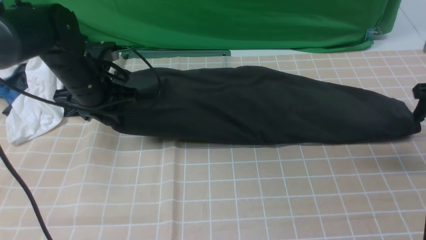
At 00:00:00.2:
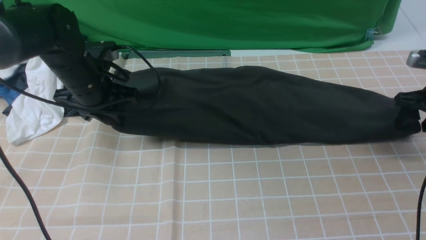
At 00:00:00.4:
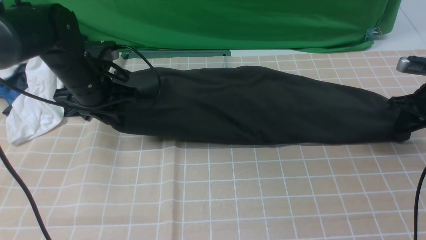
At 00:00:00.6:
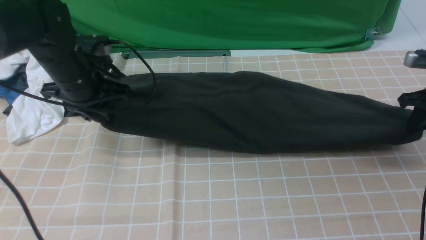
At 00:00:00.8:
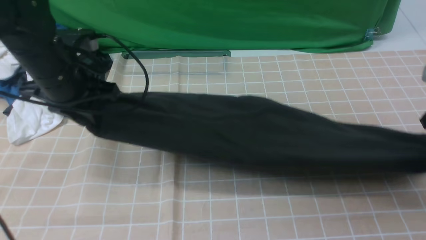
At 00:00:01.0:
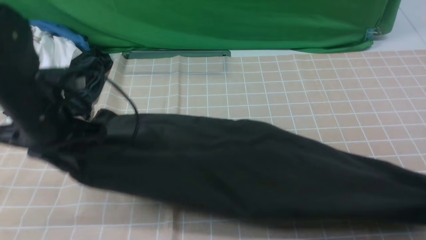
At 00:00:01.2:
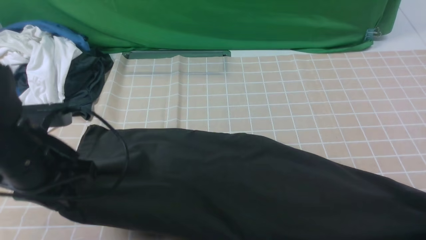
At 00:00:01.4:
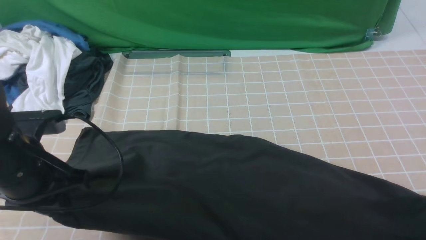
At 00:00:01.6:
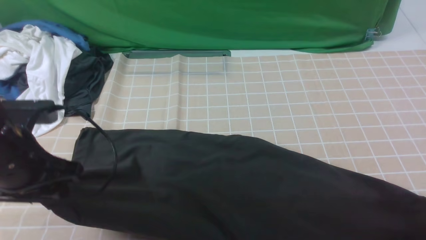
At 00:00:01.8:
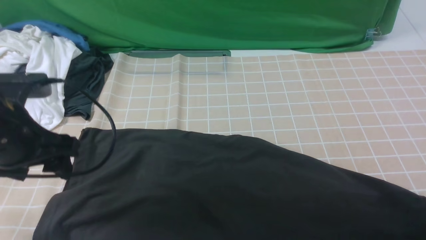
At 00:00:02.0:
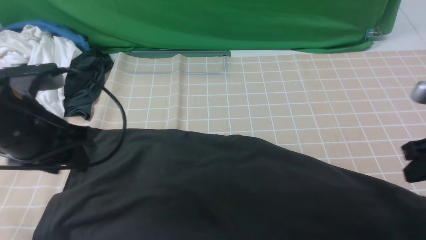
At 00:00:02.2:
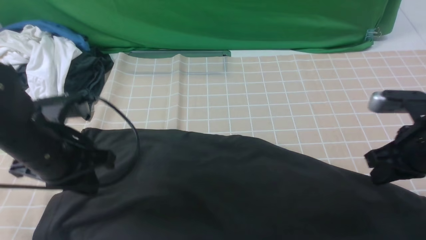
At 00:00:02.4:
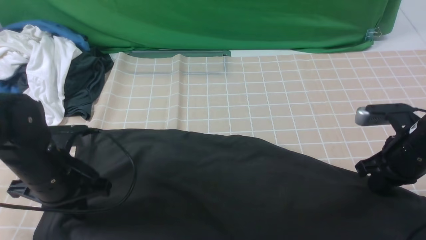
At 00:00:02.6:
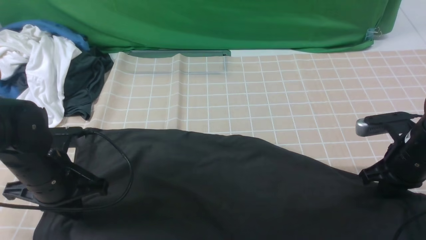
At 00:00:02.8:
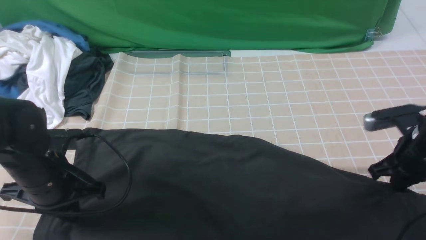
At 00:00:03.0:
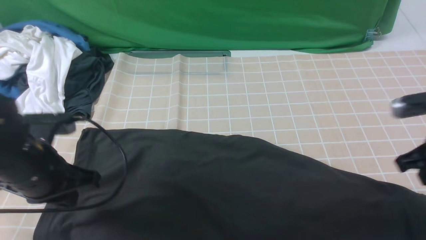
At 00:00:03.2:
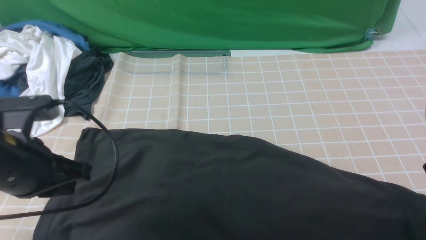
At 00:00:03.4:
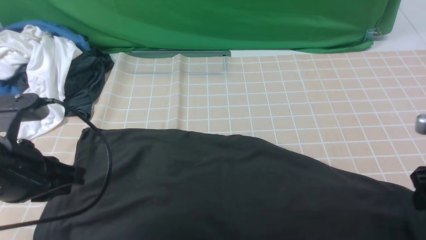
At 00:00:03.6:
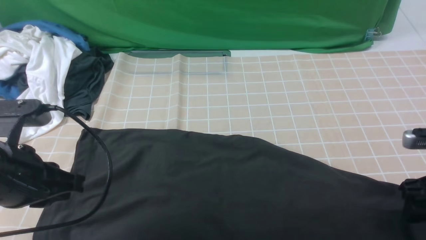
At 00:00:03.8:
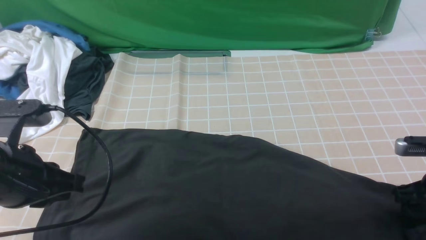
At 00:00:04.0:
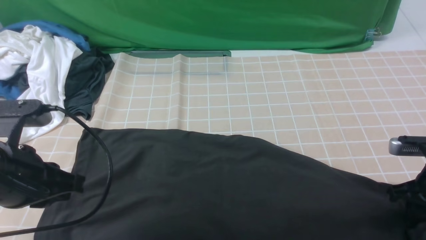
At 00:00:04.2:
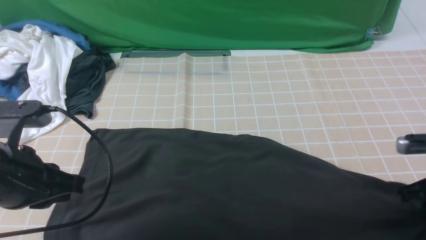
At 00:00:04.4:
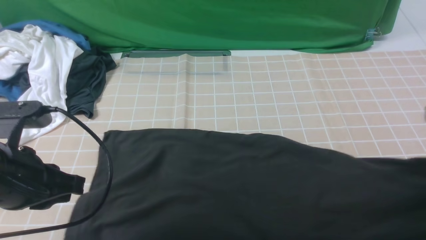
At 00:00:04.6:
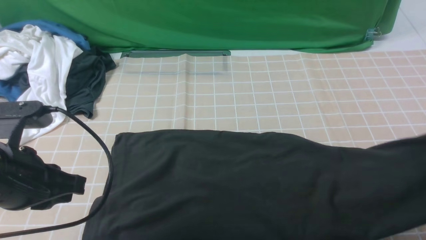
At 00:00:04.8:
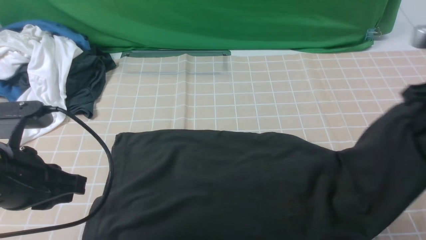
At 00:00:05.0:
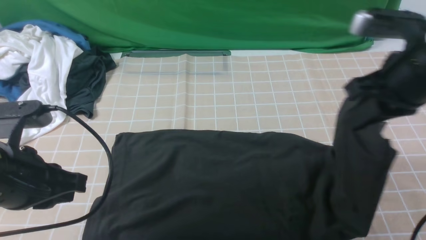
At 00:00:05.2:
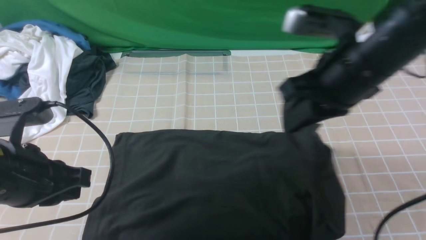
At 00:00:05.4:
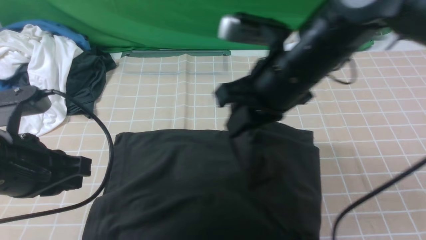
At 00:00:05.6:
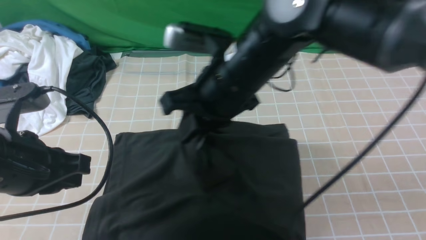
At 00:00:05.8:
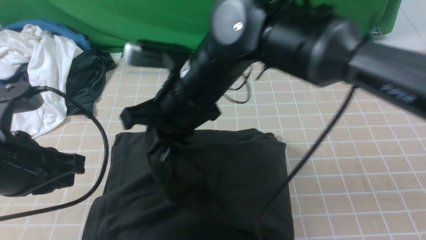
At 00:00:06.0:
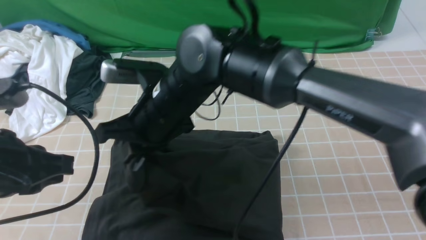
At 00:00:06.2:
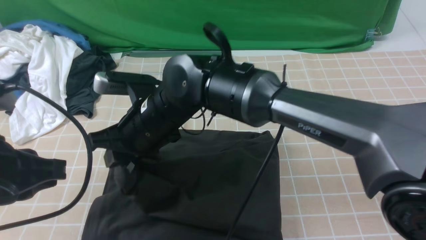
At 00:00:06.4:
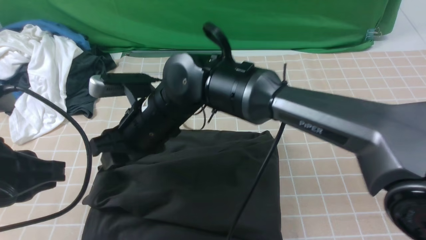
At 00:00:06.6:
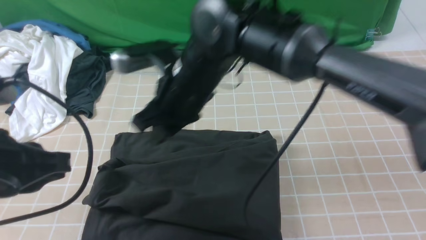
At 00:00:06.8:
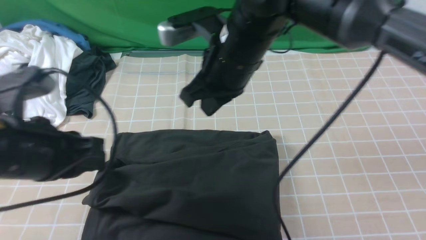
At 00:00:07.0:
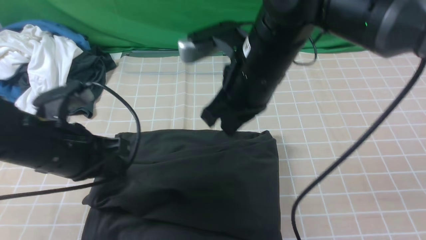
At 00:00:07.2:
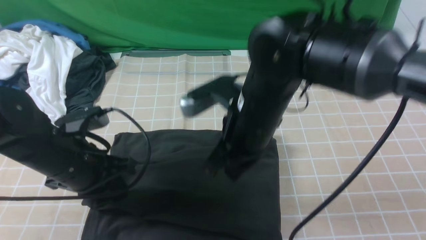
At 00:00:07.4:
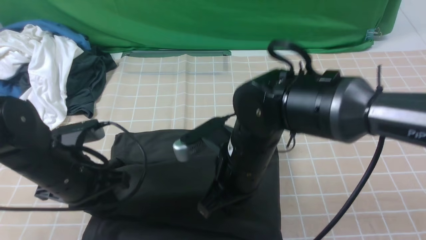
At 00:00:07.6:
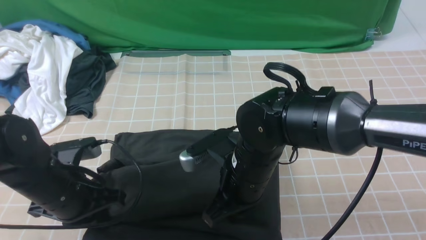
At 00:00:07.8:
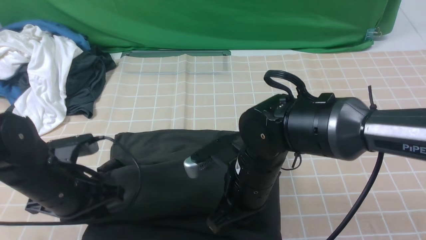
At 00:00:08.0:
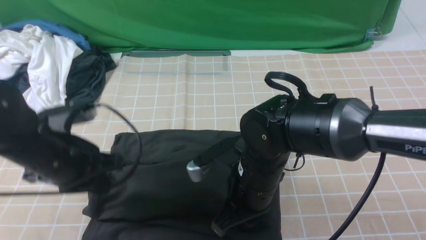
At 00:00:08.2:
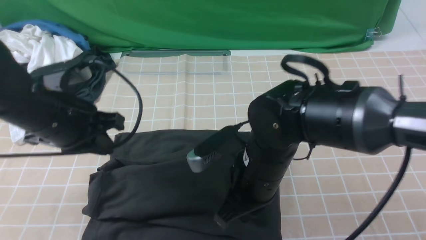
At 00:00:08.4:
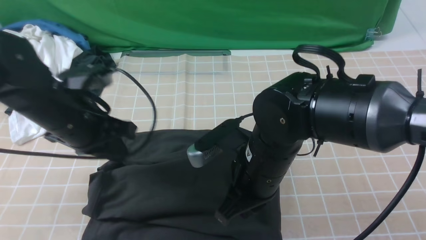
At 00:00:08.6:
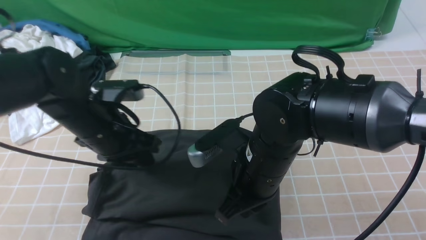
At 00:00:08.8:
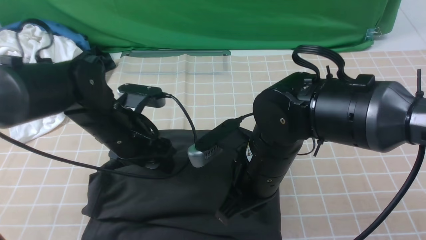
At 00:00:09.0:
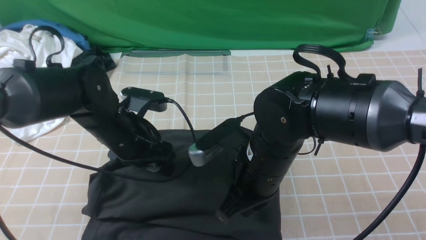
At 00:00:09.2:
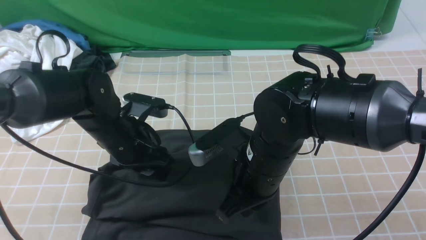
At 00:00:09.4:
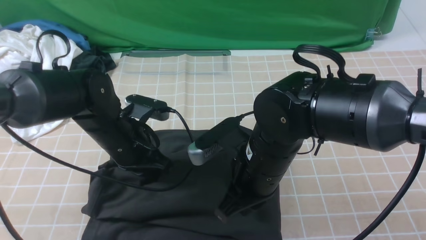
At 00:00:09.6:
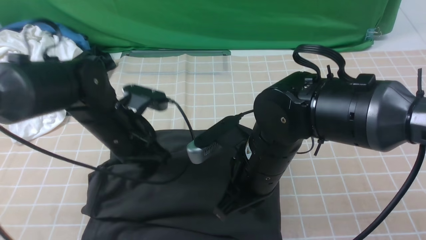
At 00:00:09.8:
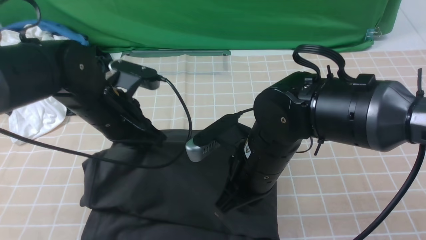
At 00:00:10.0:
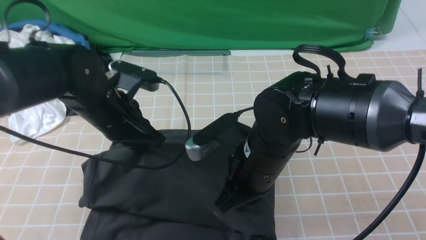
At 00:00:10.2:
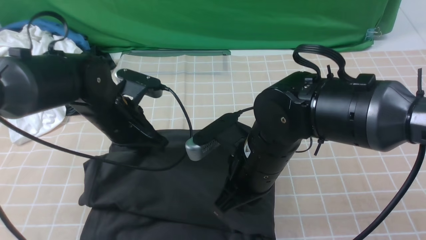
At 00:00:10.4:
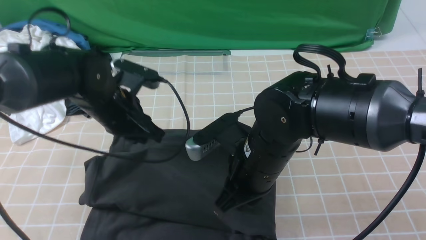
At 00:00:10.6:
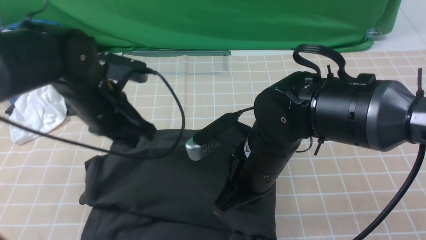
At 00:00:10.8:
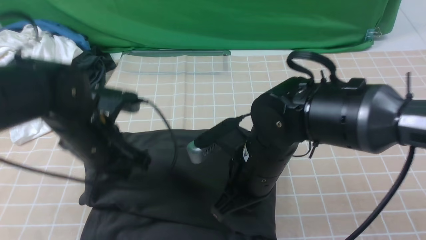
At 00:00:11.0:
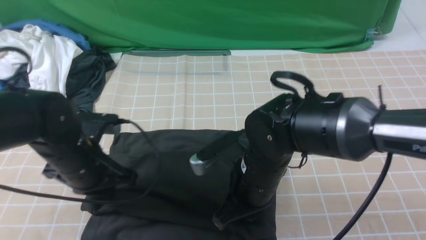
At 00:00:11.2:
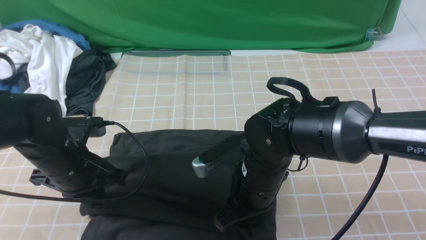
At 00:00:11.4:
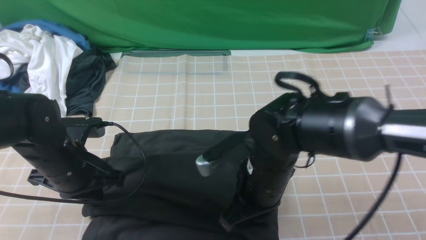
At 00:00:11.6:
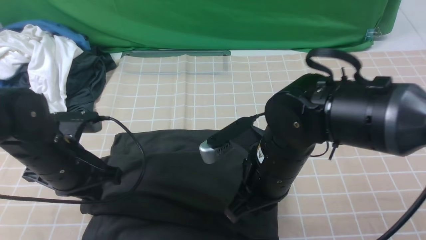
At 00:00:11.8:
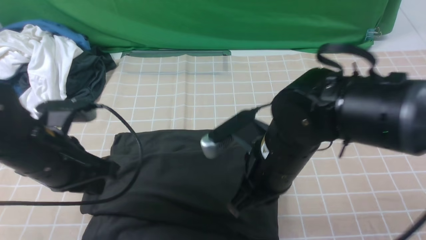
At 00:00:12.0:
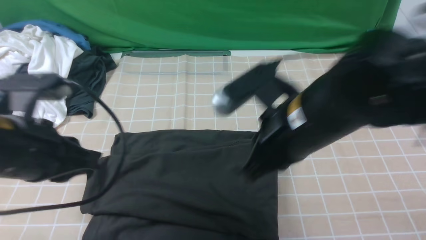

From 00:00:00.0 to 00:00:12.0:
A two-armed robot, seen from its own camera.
Step, from 00:00:00.0 to 00:00:04.2: use the right arm to clamp the right edge of the fabric.
Step, from 00:00:04.6 to 00:00:06.6: use the right arm to drag the right edge of the fabric to the left and folds it over the left edge.
From 00:00:00.0 to 00:00:01.6: Both grippers move backward, some 15 cm. The right gripper closes up, while the left gripper opens its fingers.
From 00:00:01.6 to 00:00:03.0: The left gripper closes its fingers.
From 00:00:03.0 to 00:00:04.4: The left gripper changes place by roughly 5 cm. Meanwhile the right gripper goes downward and returns, some 5 cm each way, and opens, then closes once more.
From 00:00:04.4 to 00:00:06.0: The right gripper travels to the left by roughly 40 cm.
From 00:00:06.0 to 00:00:07.6: The right gripper goes some 15 cm to the right, downward and backward, while the left gripper shifts some 15 cm downward and forward.
From 00:00:07.6 to 00:00:09.0: The left gripper heads forward and to the right, covering roughly 10 cm, and opens.
From 00:00:09.0 to 00:00:10.4: The left gripper closes up.
From 00:00:10.4 to 00:00:12.0: The left gripper moves backward, upward and to the left, roughly 15 cm; the right gripper shifts some 10 cm upward and to the right.

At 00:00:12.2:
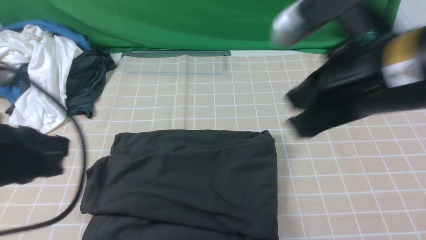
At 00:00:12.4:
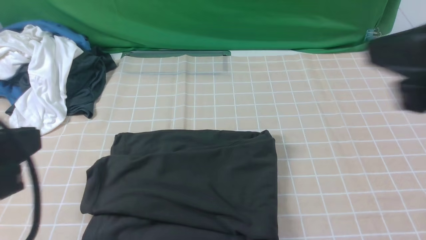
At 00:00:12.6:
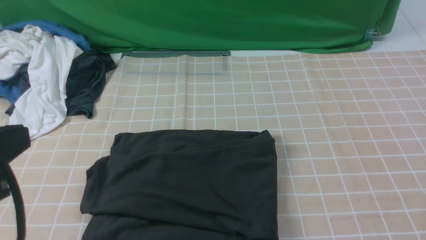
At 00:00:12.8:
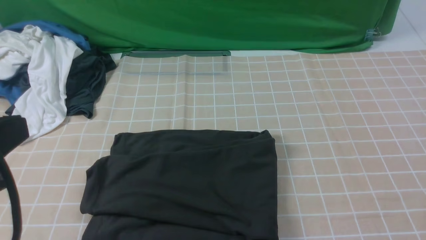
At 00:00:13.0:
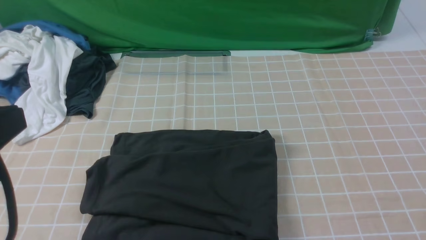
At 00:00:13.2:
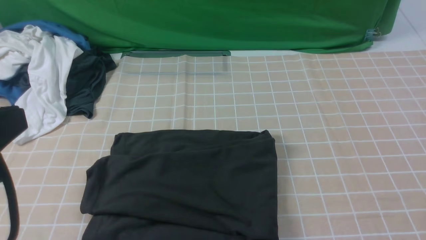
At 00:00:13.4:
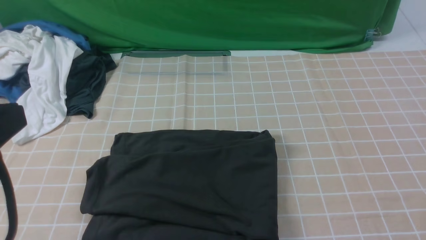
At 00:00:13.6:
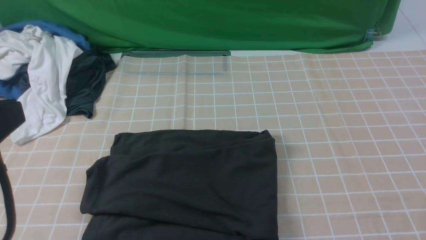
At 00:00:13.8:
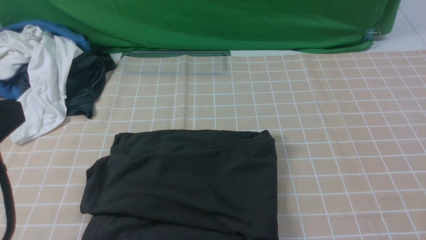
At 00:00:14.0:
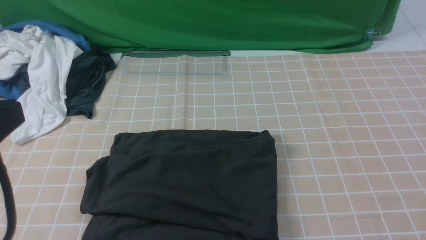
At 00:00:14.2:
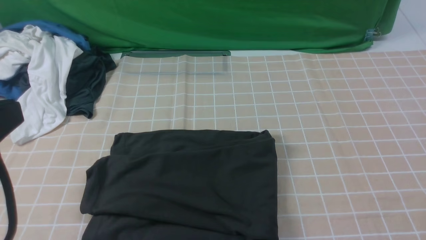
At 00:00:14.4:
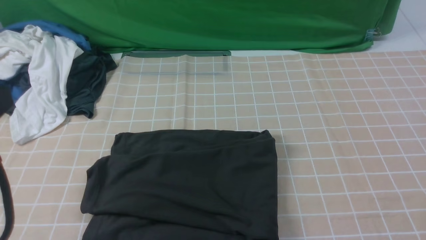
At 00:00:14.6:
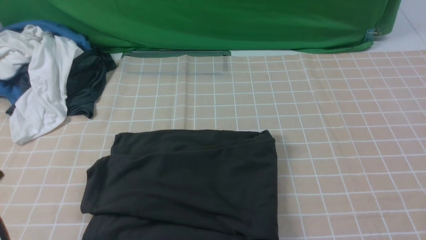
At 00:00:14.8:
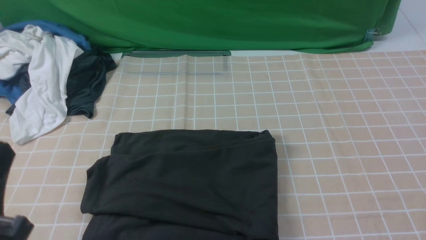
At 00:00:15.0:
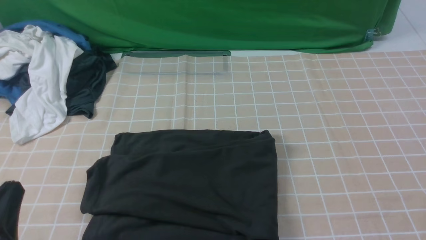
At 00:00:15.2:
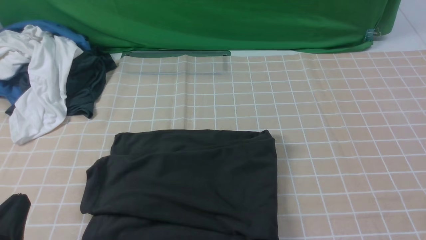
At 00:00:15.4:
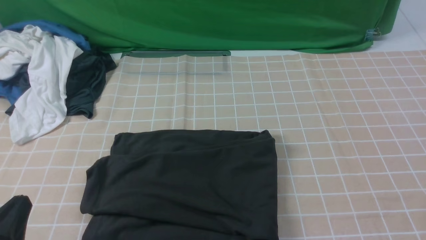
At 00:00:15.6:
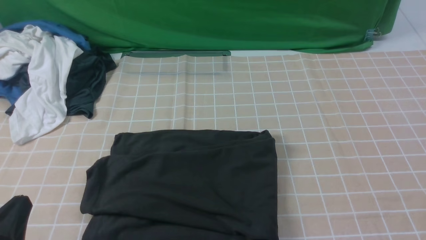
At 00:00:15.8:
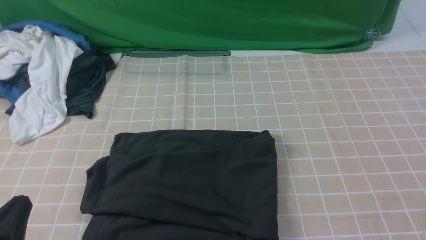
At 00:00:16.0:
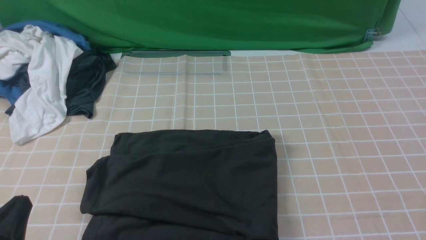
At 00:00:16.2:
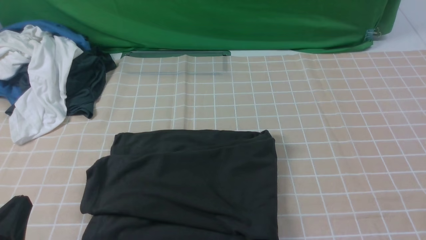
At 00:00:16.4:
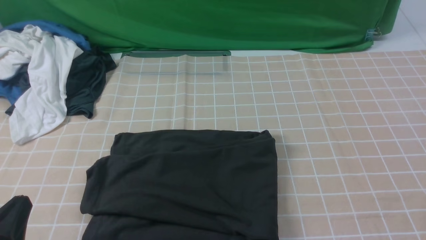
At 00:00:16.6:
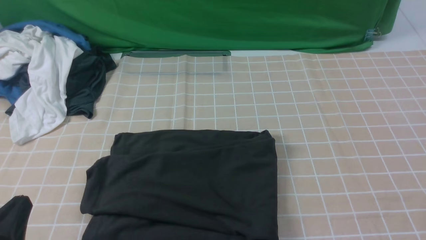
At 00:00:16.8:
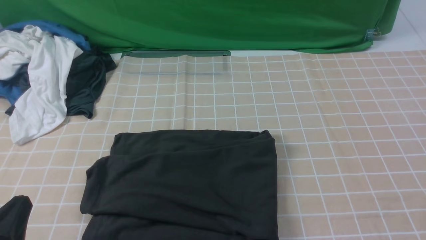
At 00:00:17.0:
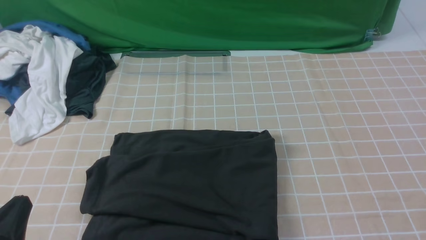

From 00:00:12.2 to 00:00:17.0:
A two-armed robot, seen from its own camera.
From 00:00:12.2 to 00:00:13.8: The right gripper heads to the right and backward, covering about 25 cm, while the left gripper ends up some 5 cm from where it was.
From 00:00:13.8 to 00:00:15.4: The left gripper heads downward, covering approximately 20 cm.
